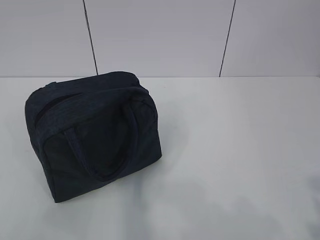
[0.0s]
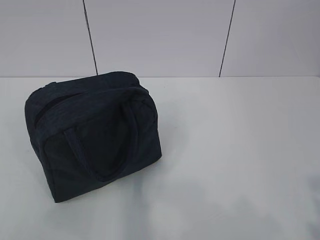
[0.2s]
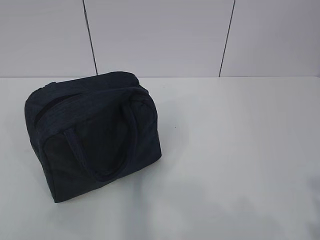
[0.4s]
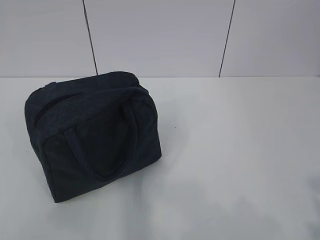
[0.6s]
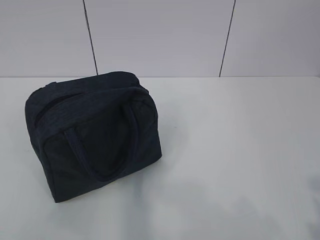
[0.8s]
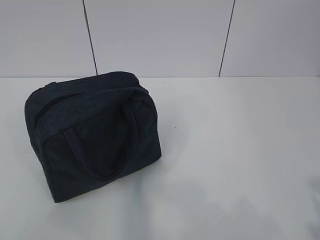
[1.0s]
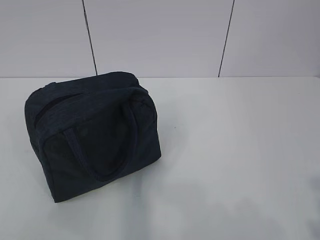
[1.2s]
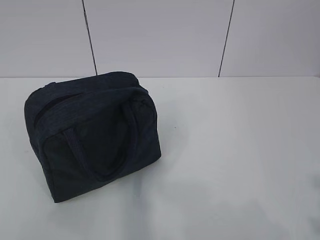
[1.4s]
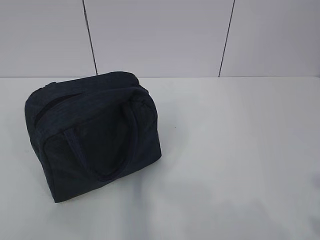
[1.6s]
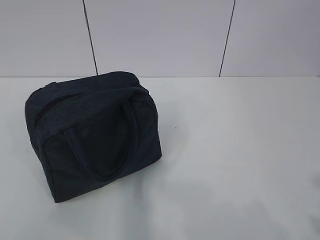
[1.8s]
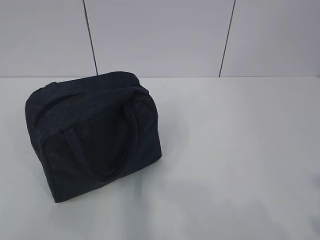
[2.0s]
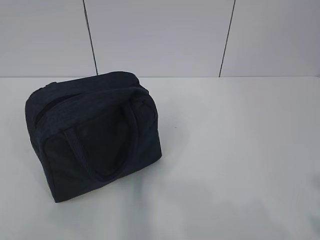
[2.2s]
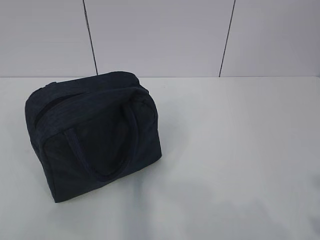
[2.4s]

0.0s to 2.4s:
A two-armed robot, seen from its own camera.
0.0s to 1.2s: Both grippers stay put.
